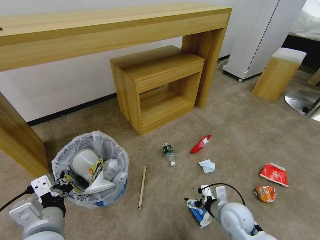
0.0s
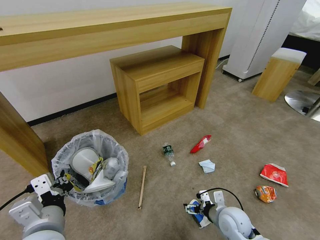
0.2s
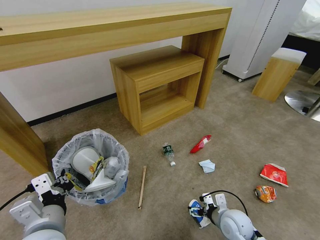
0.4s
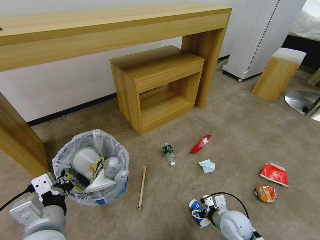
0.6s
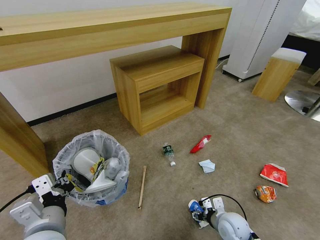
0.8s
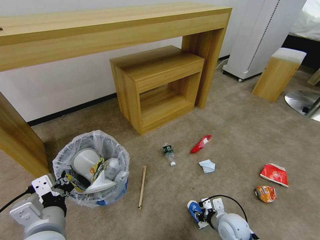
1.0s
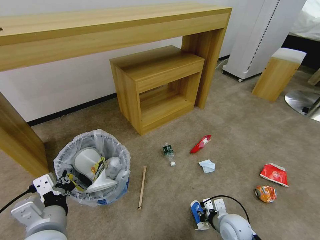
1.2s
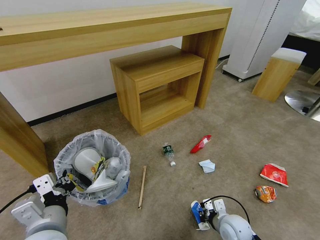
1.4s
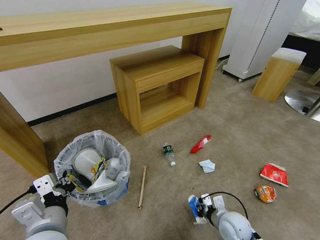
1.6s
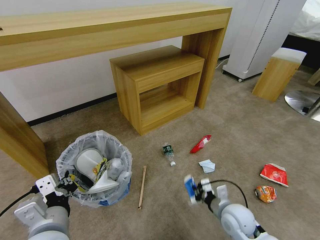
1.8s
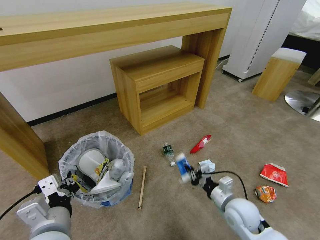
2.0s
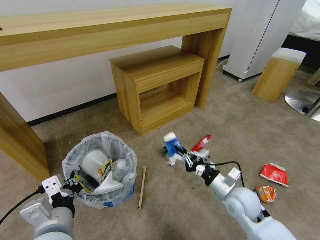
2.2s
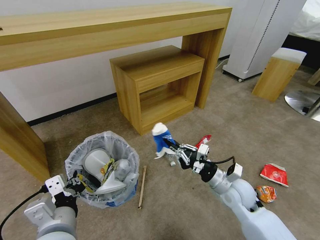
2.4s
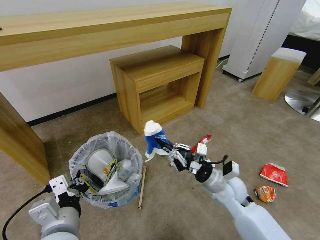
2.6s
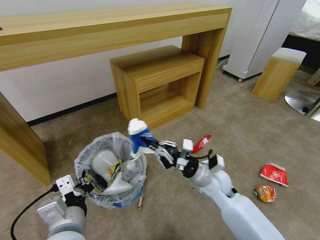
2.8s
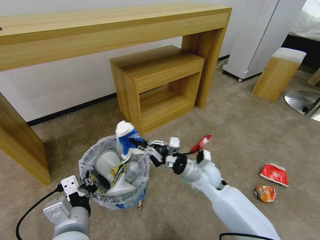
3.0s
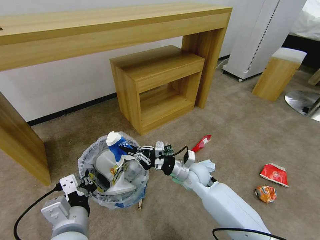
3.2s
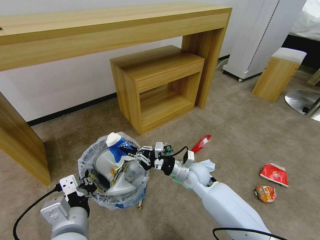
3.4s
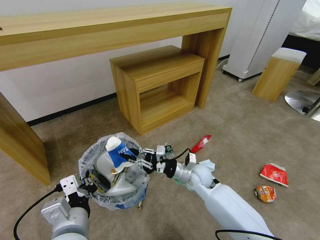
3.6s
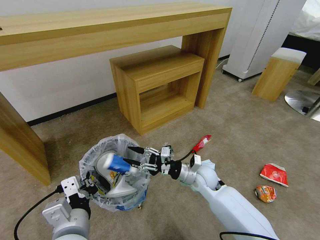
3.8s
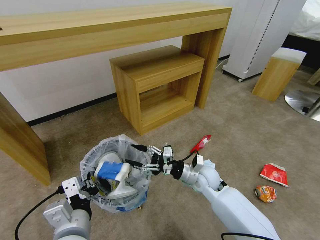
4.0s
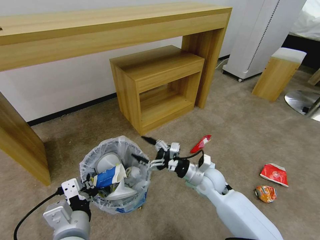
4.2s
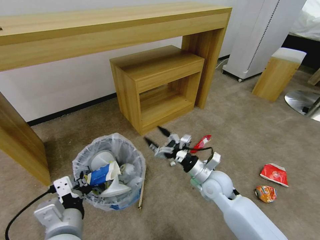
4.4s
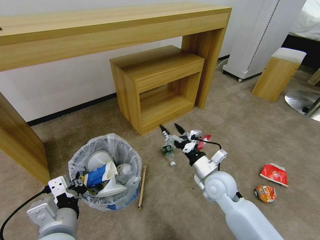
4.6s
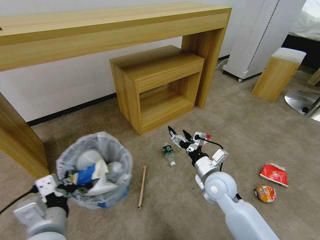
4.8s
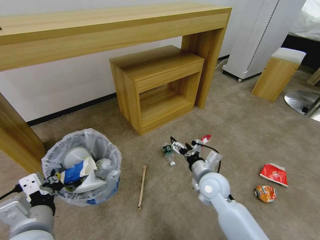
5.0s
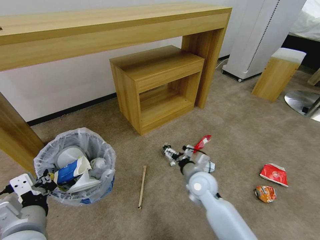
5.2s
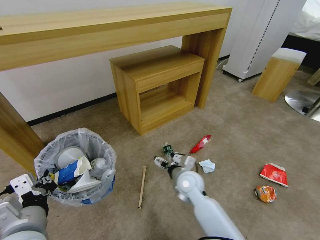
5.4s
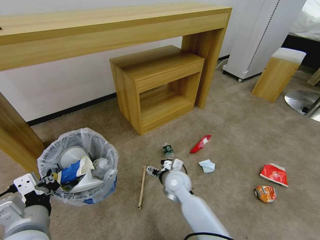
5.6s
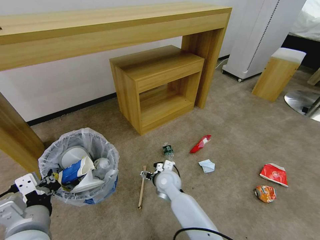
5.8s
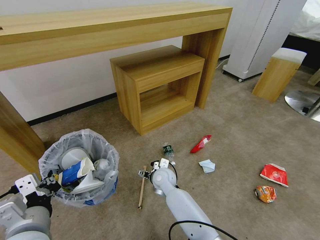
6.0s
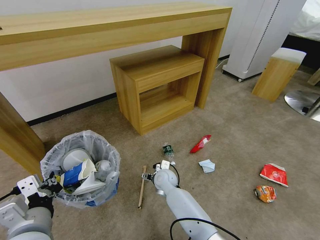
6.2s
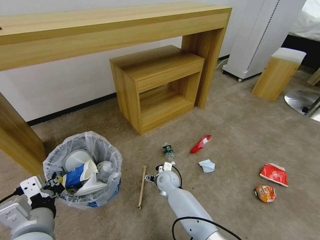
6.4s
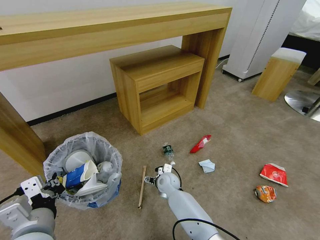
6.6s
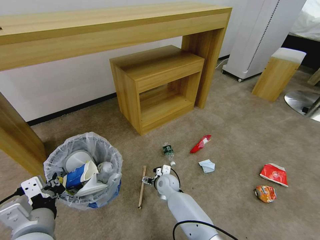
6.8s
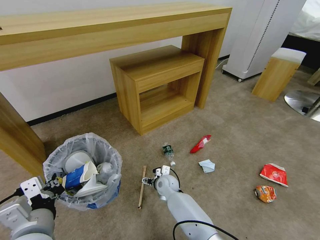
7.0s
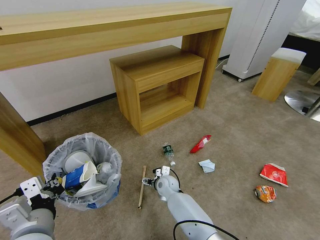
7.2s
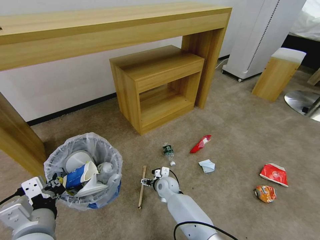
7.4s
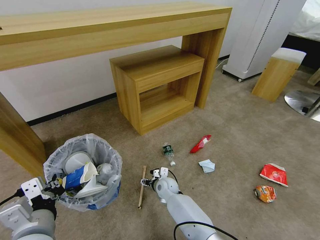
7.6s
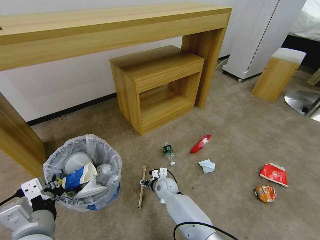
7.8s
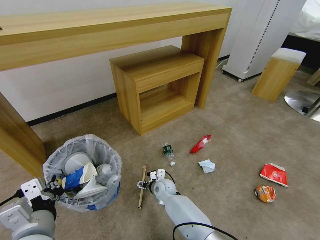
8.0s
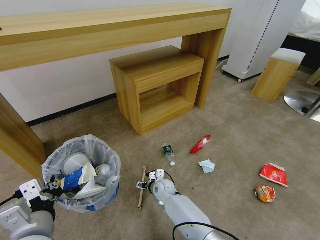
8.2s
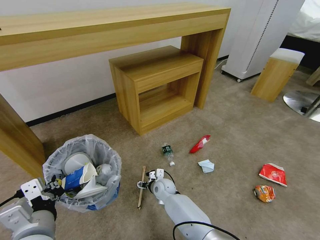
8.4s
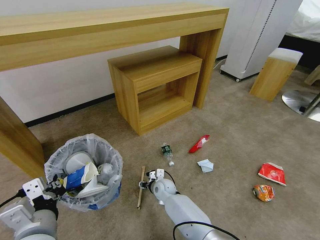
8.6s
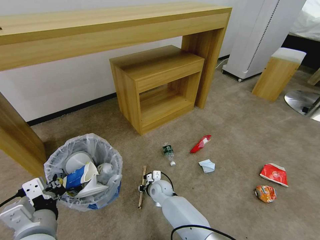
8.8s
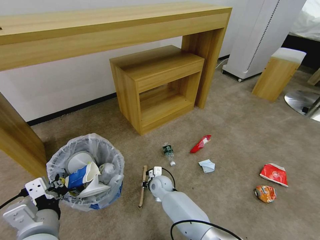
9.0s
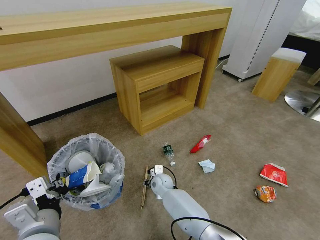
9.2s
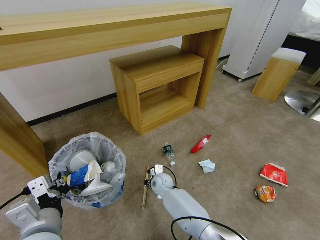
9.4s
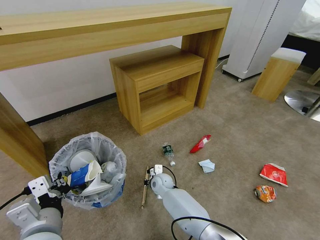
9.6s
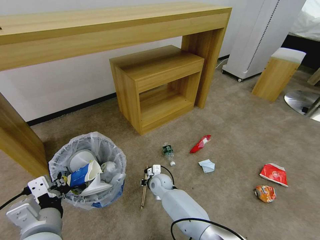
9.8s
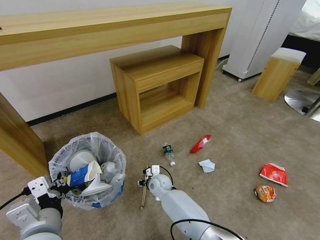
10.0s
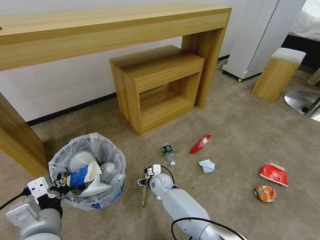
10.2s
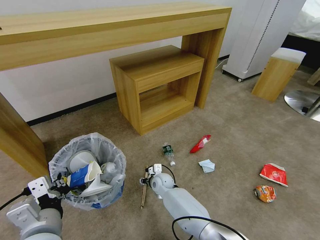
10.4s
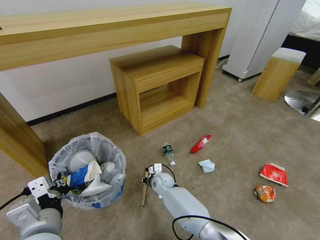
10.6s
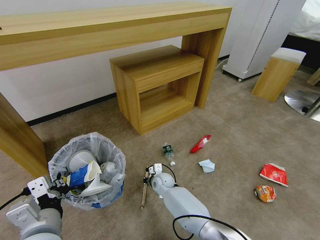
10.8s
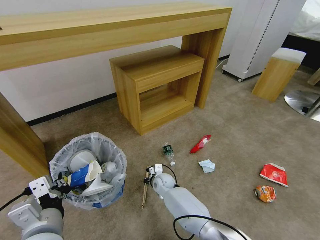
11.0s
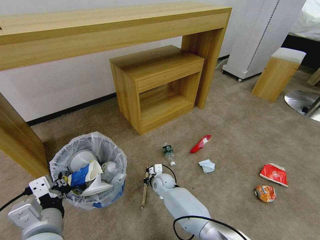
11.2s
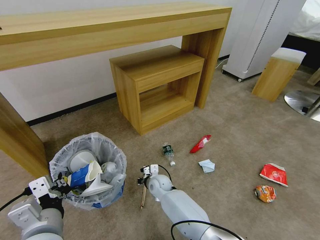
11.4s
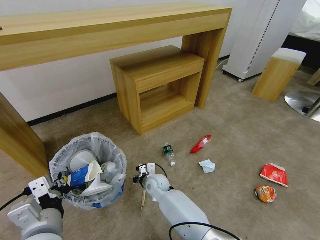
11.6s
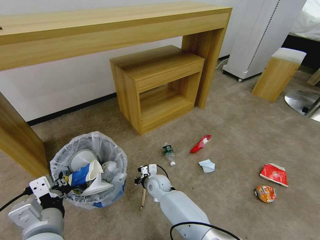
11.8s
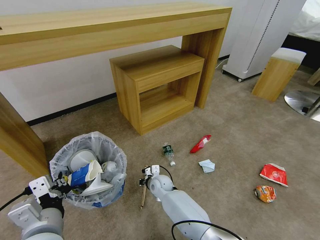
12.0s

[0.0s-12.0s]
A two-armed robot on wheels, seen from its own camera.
Task of the whole recording: Pick up the trash bin and place the garbage on the floor into it.
0.0s to 1.6s: The right gripper closes up.
1.6s to 3.0s: The right gripper travels forward, upward and to the left by approximately 20 cm.
3.0s to 4.4s: The right gripper opens.
4.4s to 6.0s: The right gripper travels to the left and downward by approximately 20 cm. The left gripper travels to the left by roughly 5 cm.
6.0s to 7.6s: The right gripper moves downward, roughly 10 cm.
7.6s to 9.0s: The right gripper closes up.
9.0s to 12.0s: The grippers make only small movements.

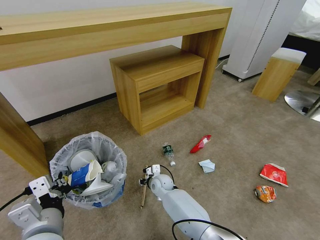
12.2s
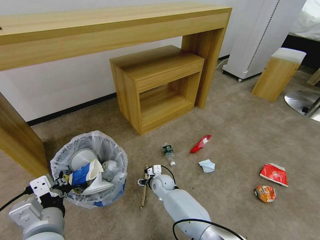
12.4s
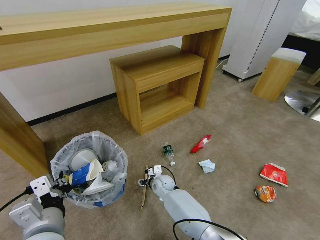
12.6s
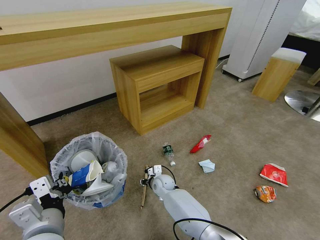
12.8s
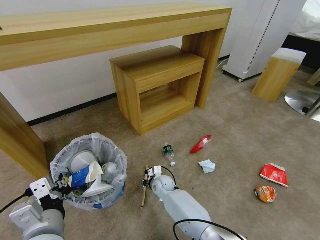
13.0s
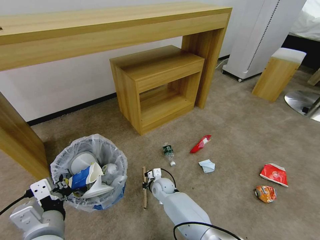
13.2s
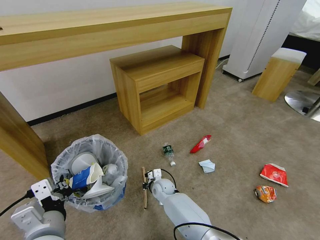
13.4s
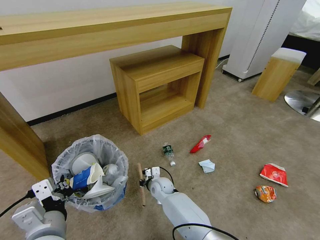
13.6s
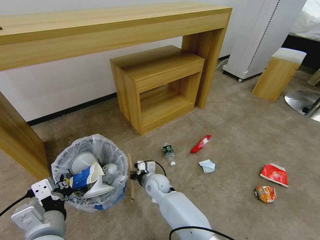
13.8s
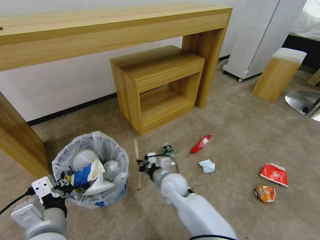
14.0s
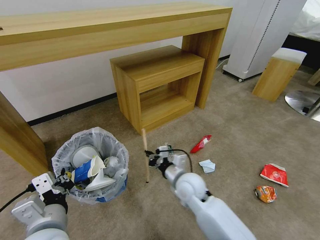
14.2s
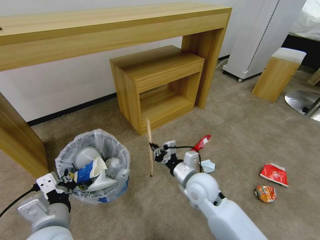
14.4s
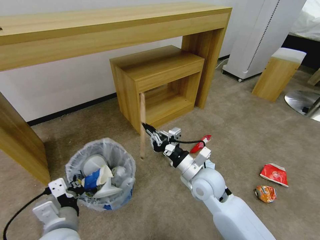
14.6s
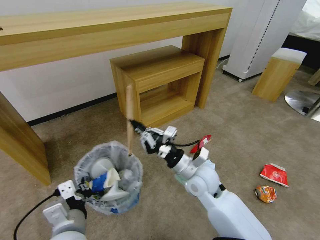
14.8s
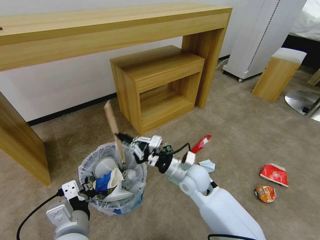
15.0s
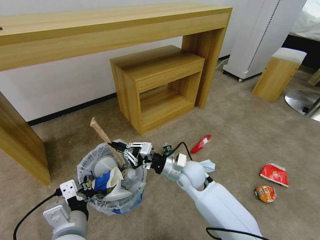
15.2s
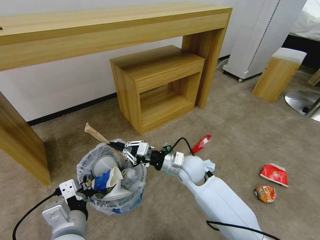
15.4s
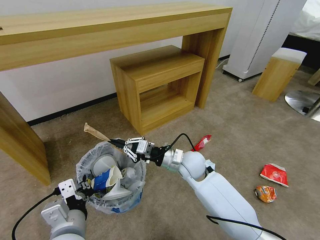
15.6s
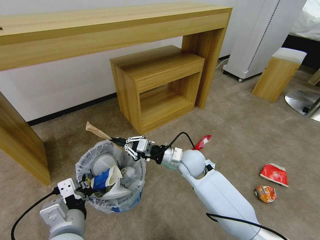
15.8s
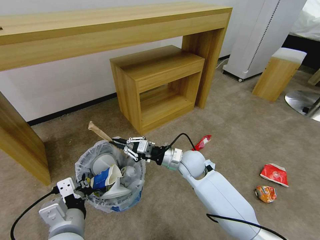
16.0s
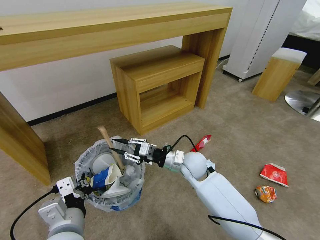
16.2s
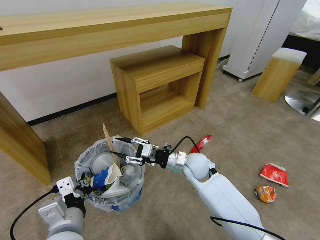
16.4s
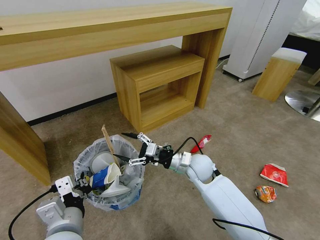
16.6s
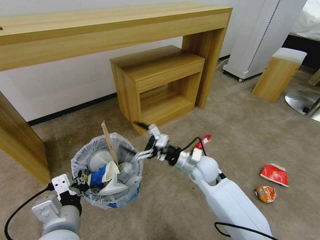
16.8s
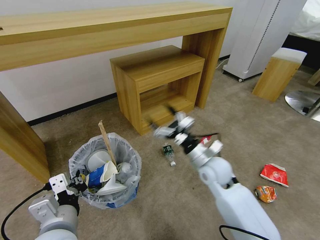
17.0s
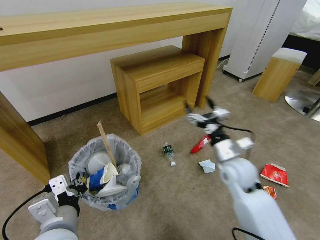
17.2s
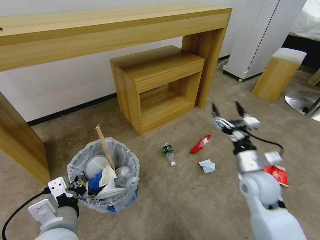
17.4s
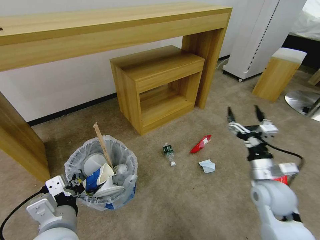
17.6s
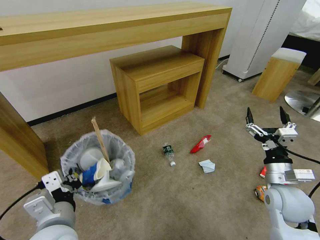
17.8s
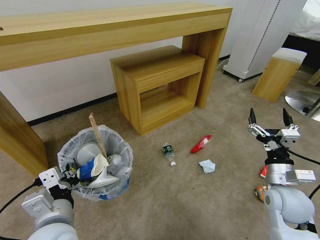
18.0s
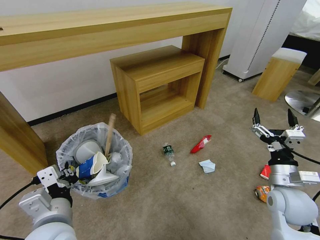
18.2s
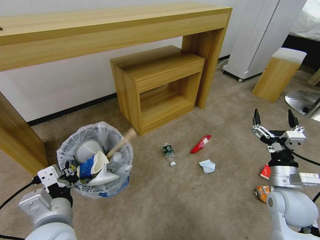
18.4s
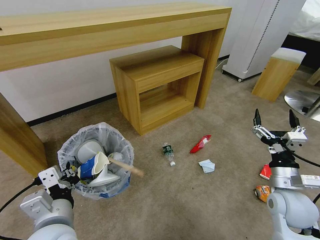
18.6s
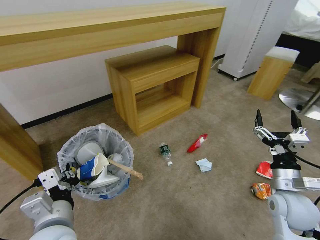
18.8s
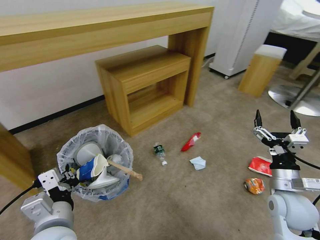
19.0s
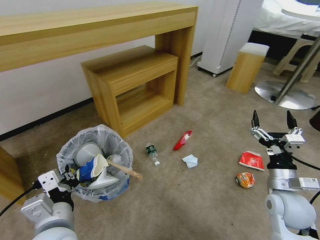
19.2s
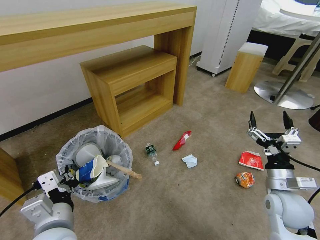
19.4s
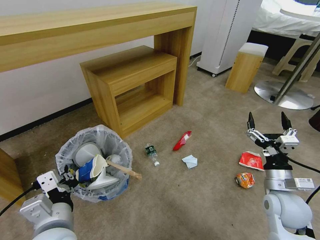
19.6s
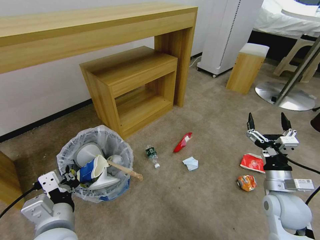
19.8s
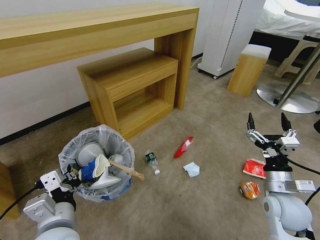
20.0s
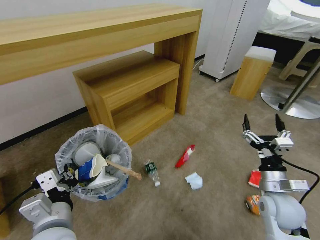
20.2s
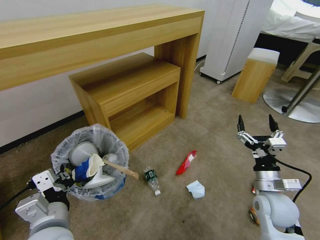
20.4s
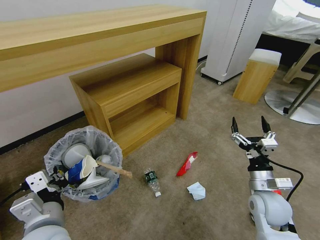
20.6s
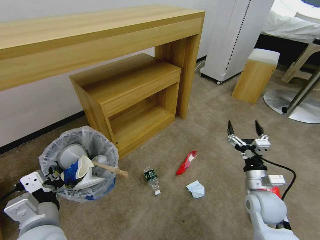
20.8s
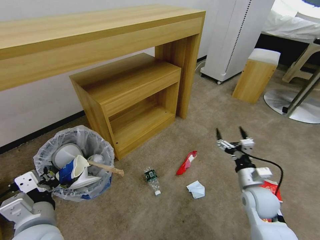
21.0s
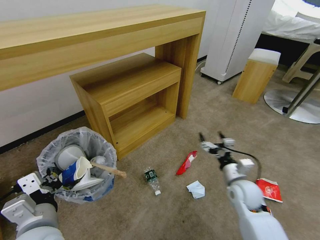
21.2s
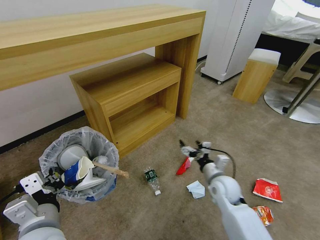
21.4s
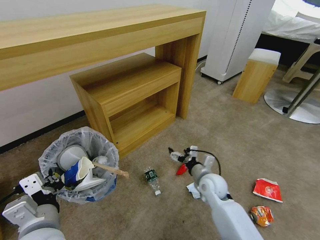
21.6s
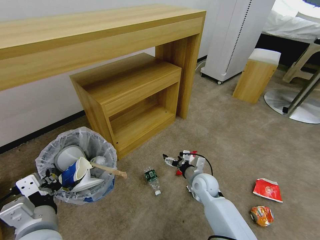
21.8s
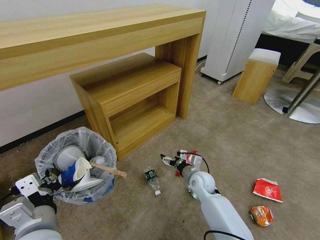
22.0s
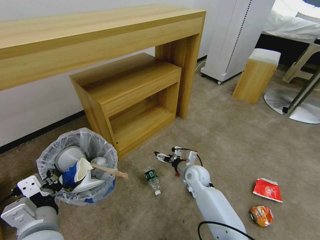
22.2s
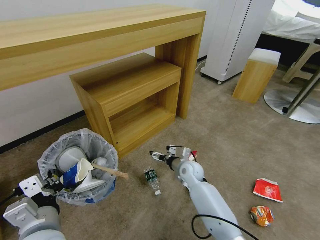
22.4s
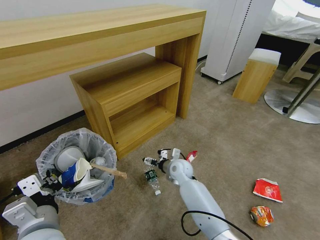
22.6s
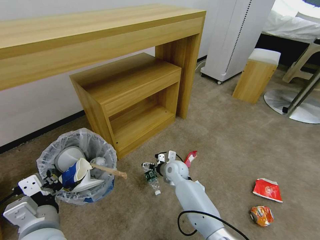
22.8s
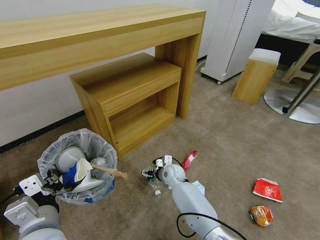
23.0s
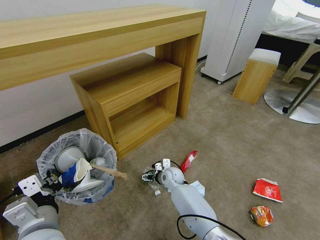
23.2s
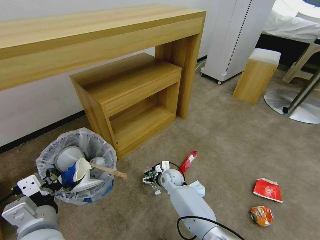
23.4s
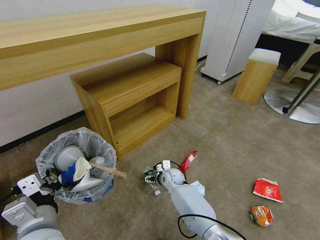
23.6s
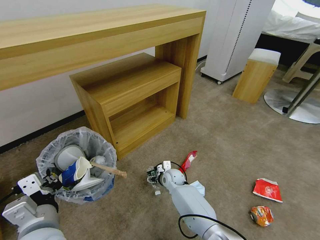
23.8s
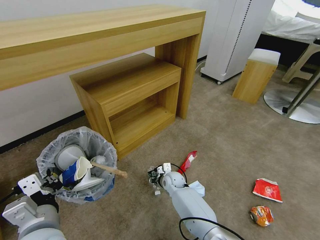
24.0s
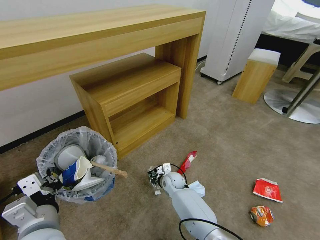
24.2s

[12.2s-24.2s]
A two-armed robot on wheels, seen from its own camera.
Task of the whole recording: Pick up the trash bin and place the garbage on the floor into it.
12.2s to 13.8s: The right gripper goes some 5 cm upward, and closes.
13.8s to 15.2s: The right gripper shifts about 15 cm upward and to the right.
15.2s to 16.6s: The right gripper opens.
16.6s to 18.2s: The right gripper travels to the right and backward by some 25 cm.
19.8s to 21.2s: The right gripper shifts about 10 cm forward, to the left and downward.
21.2s to 22.6s: The right gripper is displaced to the left and forward by approximately 20 cm.
22.6s to 24.2s: The right gripper is displaced downward by approximately 10 cm, and closes.
